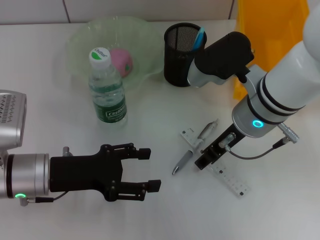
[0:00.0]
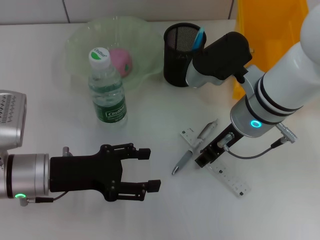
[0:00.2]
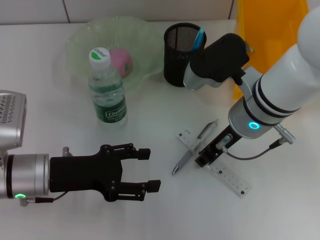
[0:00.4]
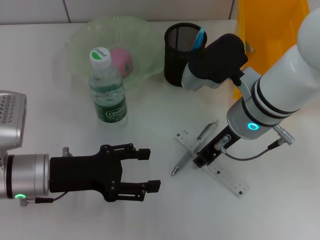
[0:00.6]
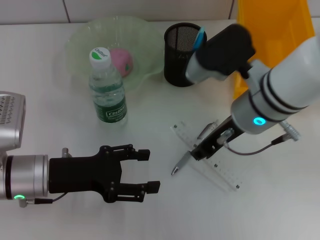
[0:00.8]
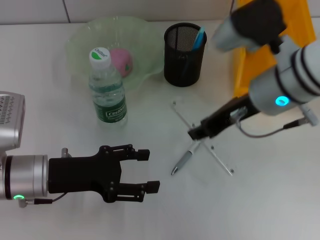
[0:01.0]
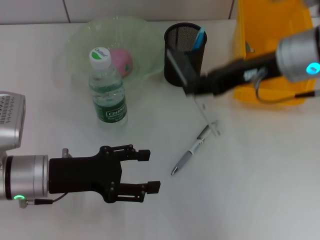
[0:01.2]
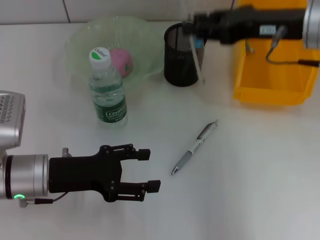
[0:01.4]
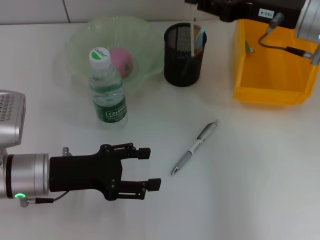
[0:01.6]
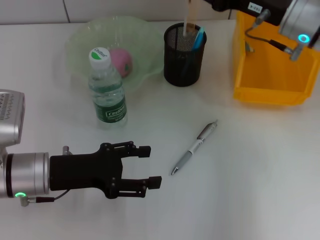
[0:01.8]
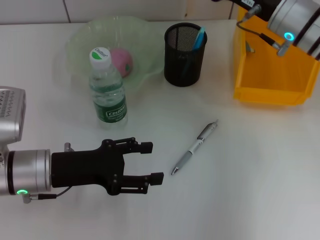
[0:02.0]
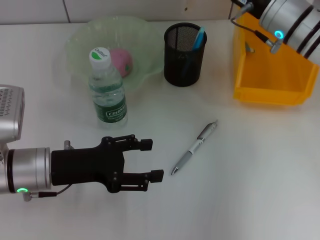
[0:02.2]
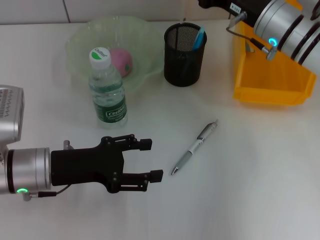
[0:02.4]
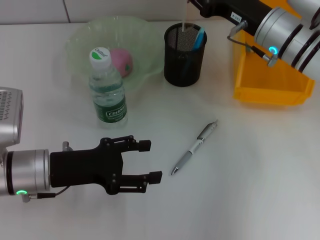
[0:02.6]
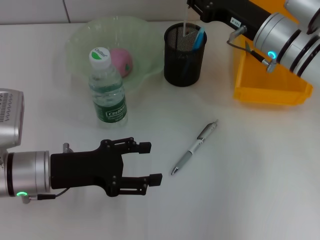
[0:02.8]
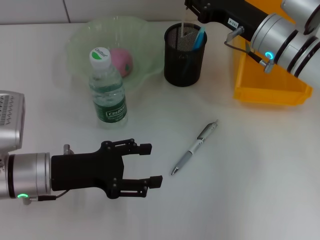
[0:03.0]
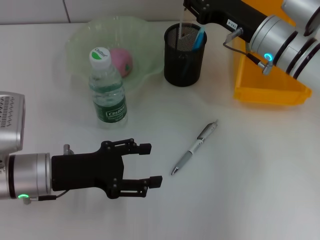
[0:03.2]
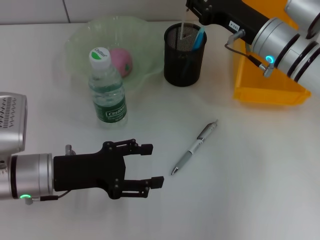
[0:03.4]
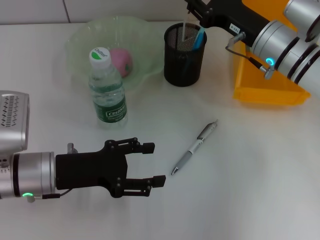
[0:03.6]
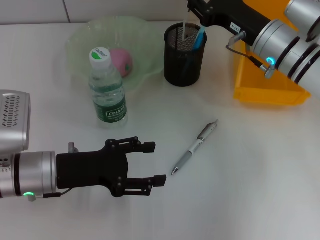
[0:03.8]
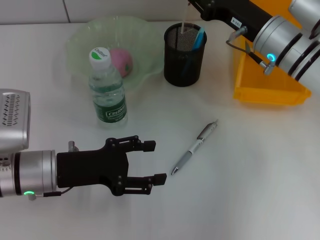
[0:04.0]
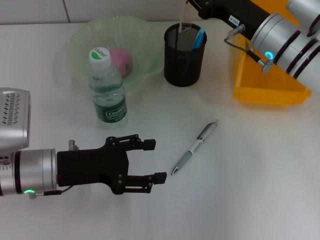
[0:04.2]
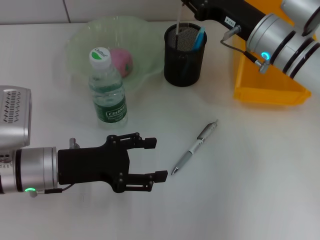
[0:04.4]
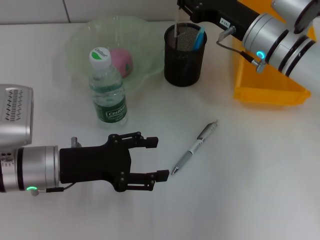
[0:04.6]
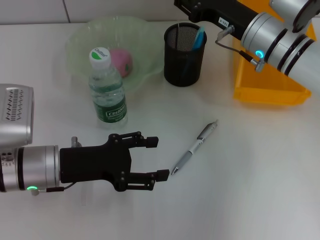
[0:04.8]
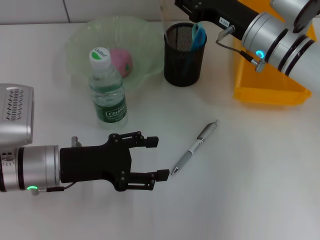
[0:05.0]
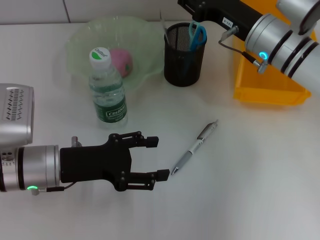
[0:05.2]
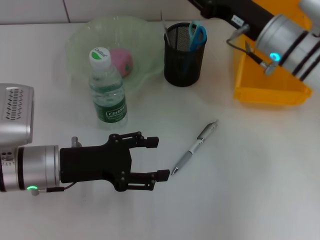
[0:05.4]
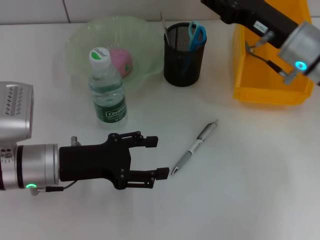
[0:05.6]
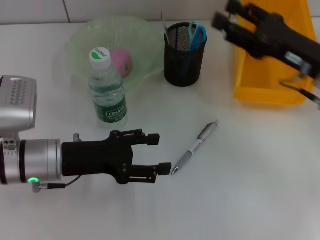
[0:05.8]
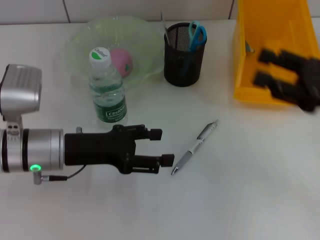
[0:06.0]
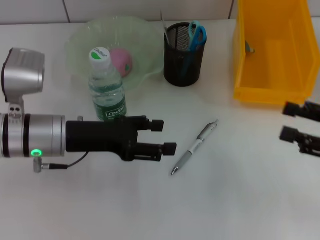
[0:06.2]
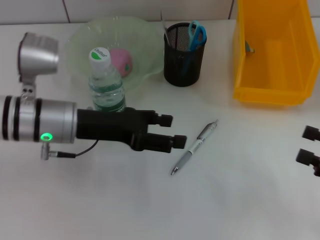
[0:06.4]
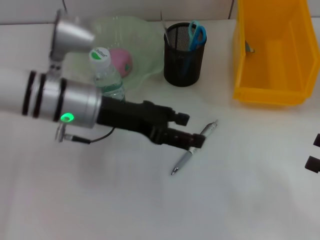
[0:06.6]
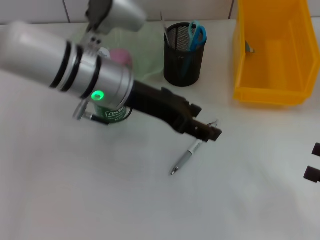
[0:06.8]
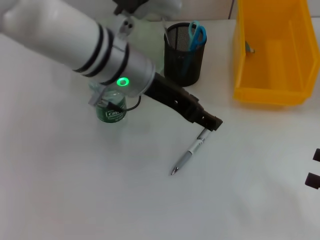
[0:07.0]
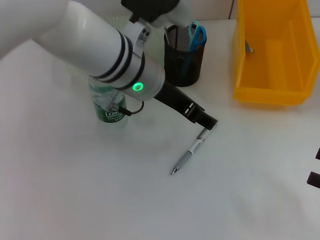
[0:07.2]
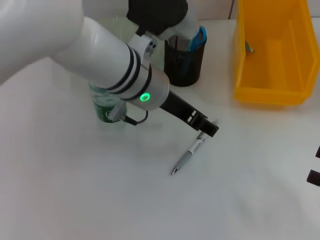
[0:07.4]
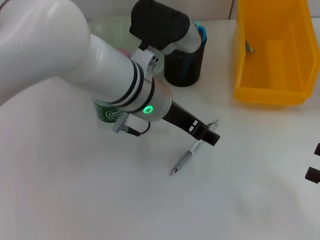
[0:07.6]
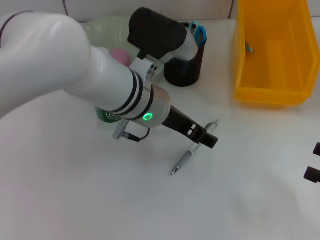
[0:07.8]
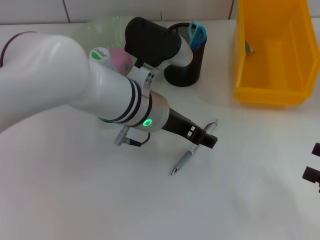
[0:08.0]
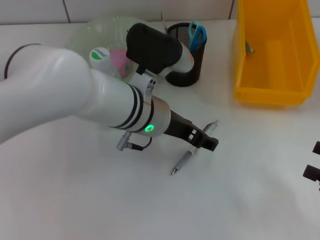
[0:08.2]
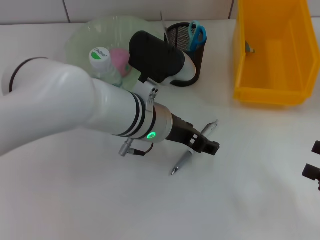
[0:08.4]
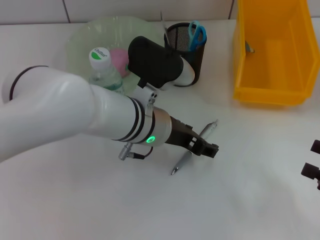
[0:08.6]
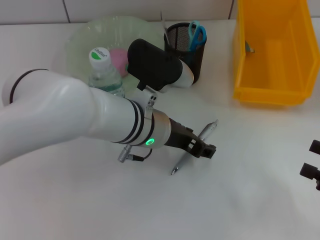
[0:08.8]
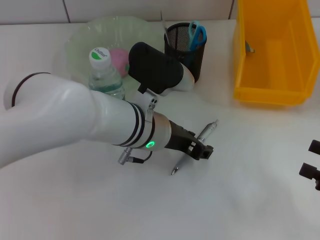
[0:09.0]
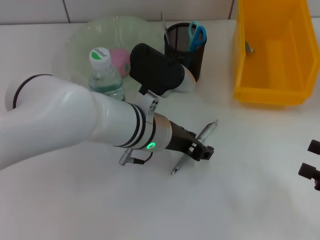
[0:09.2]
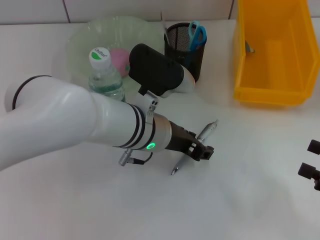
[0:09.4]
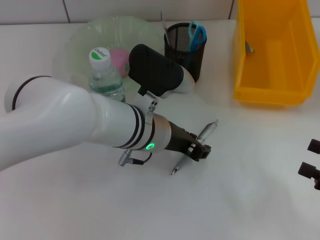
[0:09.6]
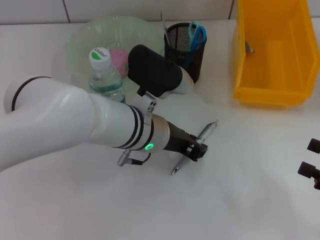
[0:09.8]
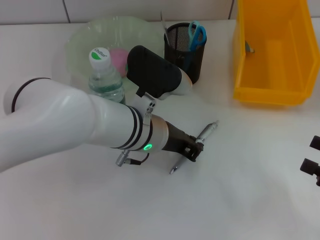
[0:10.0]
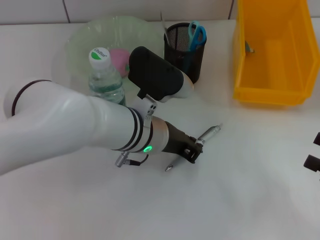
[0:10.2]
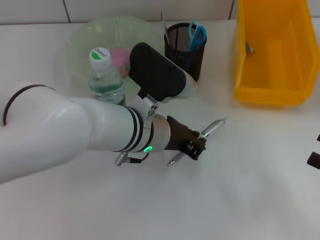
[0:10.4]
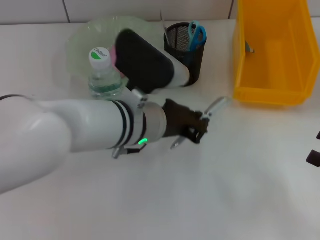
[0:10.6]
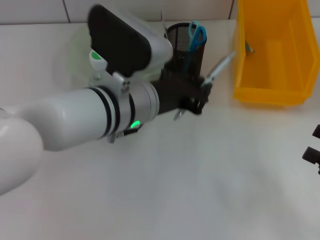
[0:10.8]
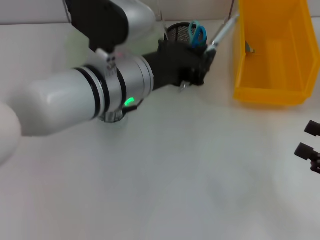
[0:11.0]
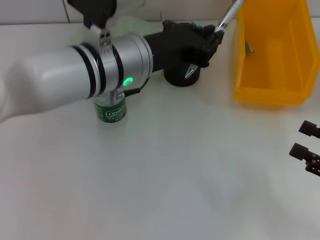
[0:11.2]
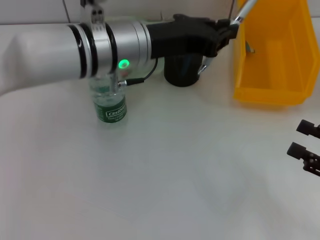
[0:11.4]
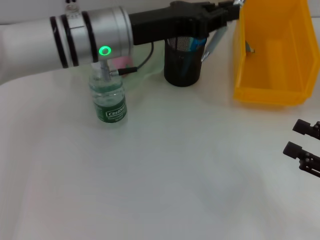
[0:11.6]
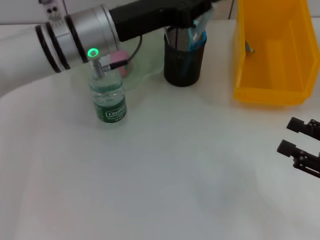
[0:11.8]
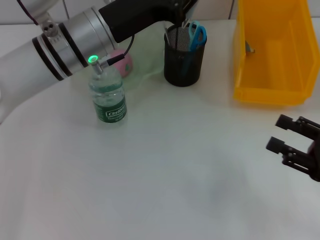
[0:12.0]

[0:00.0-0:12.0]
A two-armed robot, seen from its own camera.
Step, 0:00.6 to 0:04.8: Place the ruler into the pen holder with the right hand.
Step, 0:05.0 to 0:10.0: Grab the gray spring-action pen with the left hand.
0:00.0 to 0:01.6: The right gripper moves to the right and upward, about 10 cm, and closes.
0:01.6 to 0:03.0: The right gripper heads downward, covering roughly 5 cm.
0:03.0 to 0:04.4: Both grippers stay about where they are.
0:04.4 to 0:06.0: The right gripper is displaced to the right and backward by approximately 20 cm, and opens its fingers.
0:06.0 to 0:07.6: The left gripper is displaced to the right and upward by roughly 20 cm; the right gripper is displaced backward, to the right and downward by approximately 15 cm.
0:07.6 to 0:09.0: The left gripper shifts about 5 cm downward.
0:09.0 to 0:10.4: The left gripper closes its fingers.
0:10.4 to 0:12.0: The left gripper moves to the left, forward and upward, some 10 cm, while the right gripper changes place by roughly 5 cm.

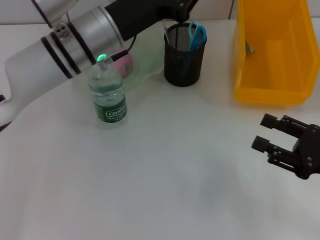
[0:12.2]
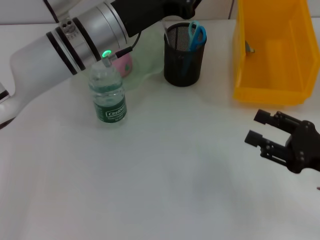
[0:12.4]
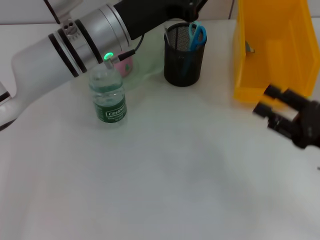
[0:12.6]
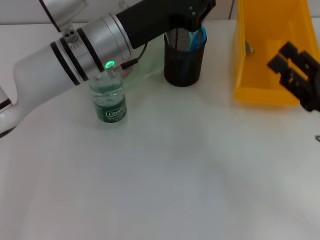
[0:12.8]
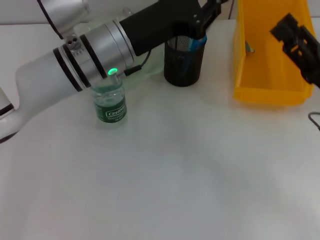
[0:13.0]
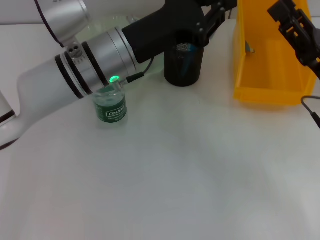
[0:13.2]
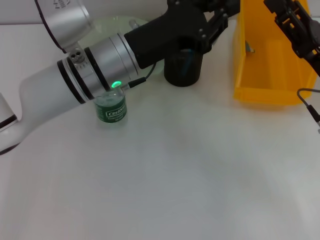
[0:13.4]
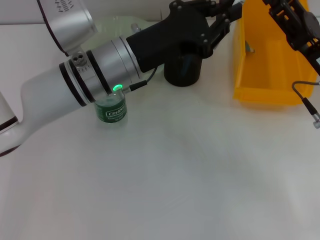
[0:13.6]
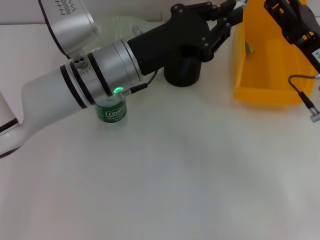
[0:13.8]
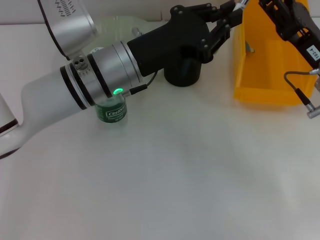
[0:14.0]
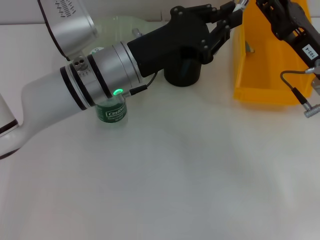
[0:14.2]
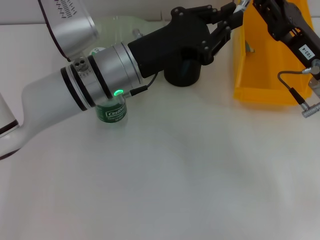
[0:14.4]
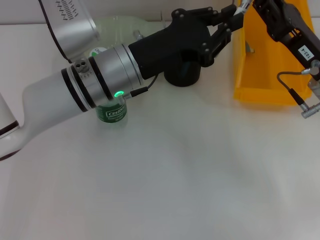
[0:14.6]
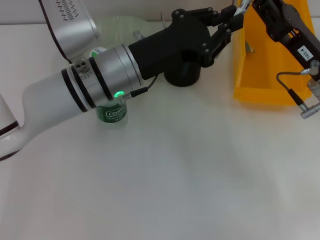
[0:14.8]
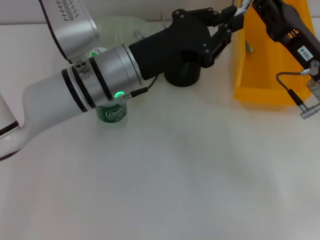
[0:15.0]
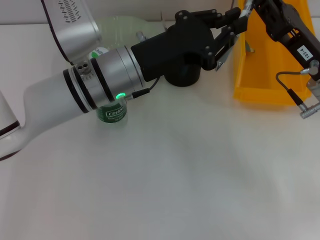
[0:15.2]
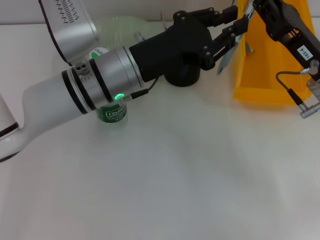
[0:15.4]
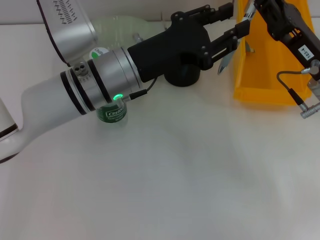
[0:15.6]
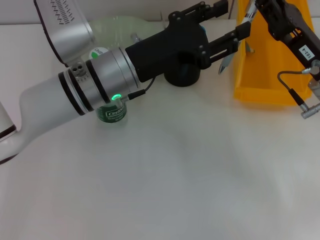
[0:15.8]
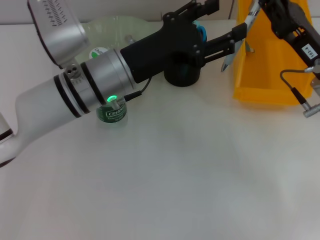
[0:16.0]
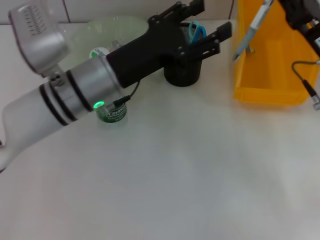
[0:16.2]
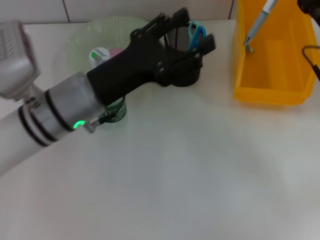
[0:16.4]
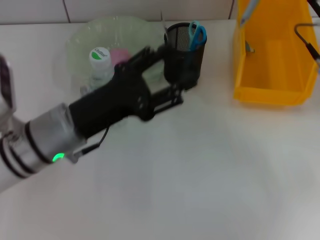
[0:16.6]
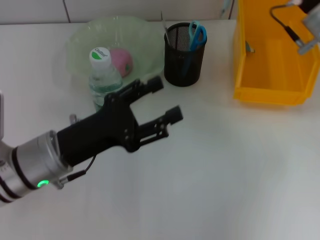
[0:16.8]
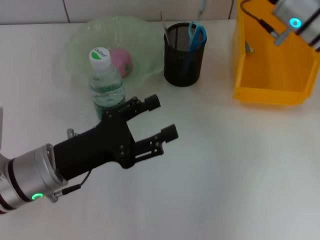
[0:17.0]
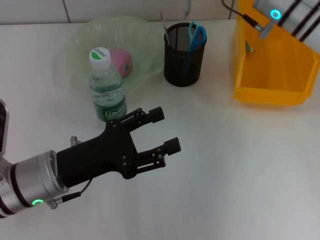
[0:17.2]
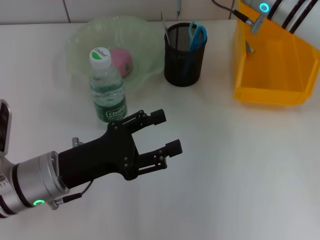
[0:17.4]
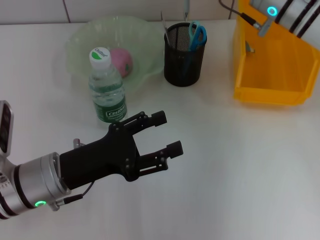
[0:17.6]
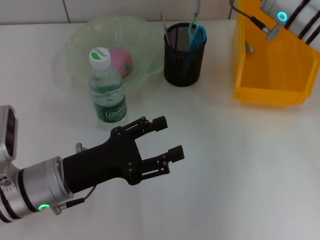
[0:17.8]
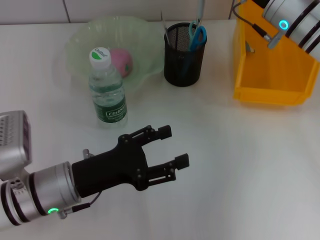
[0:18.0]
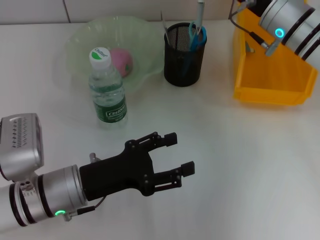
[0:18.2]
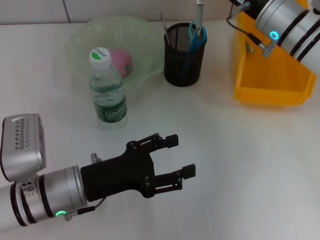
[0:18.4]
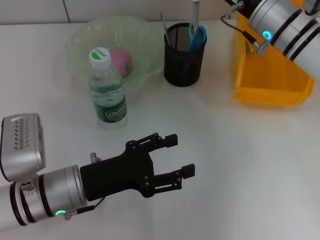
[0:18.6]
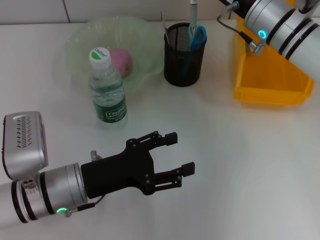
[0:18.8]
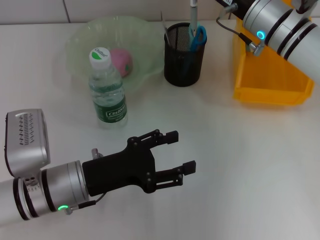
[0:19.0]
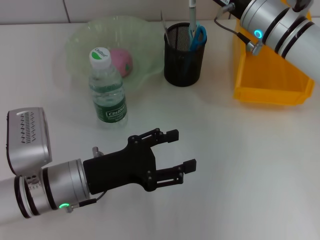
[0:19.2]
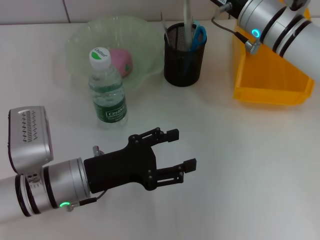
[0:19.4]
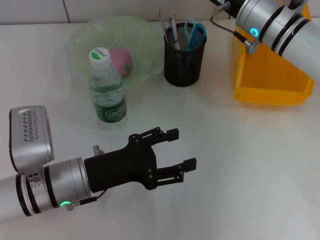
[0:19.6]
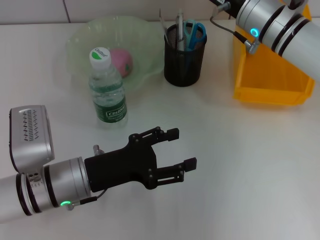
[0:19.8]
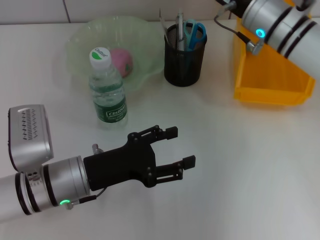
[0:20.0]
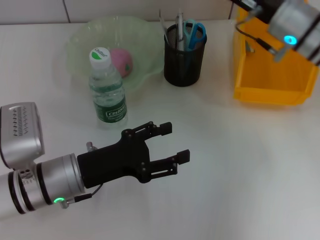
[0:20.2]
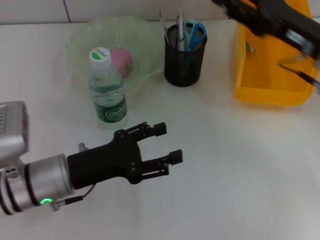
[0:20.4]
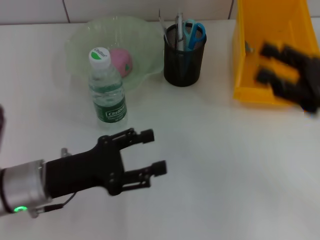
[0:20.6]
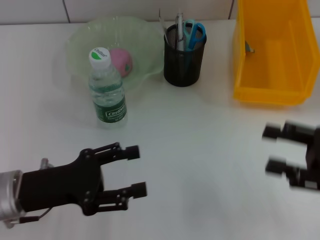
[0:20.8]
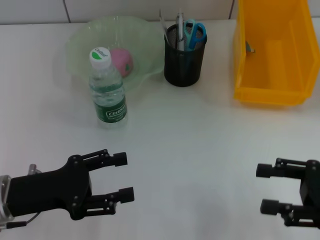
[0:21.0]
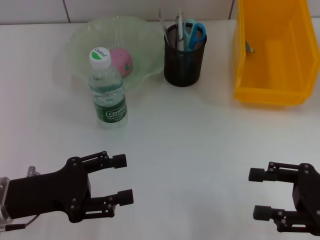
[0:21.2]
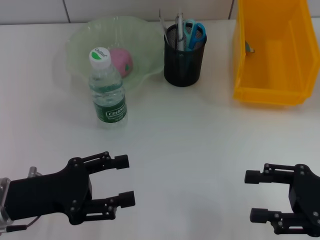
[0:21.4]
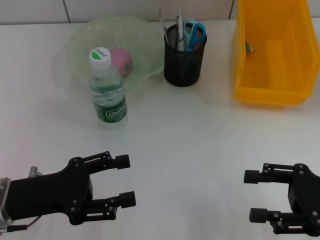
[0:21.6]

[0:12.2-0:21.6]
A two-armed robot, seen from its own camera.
Step, 0:12.2 to 0:15.2: Pass the gray spring-action pen from the left hand to the right hand.
Step, 0:15.4 to 0:19.8: Place the gray spring-action pen into the pen holder with the right hand.
0:12.2 to 0:13.8: The right gripper moves forward, to the left and upward, roughly 10 cm.
0:13.8 to 0:15.4: The right gripper closes its fingers.
0:15.4 to 0:17.0: The left gripper travels to the left, backward and downward by some 15 cm, and opens up. Meanwhile the right gripper goes some 10 cm forward and upward.
0:18.4 to 0:20.0: The right gripper opens up.
0:20.0 to 0:21.6: The right gripper moves backward and to the right, roughly 25 cm, and opens its fingers. The left gripper travels to the left by some 10 cm.
